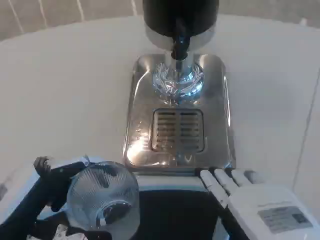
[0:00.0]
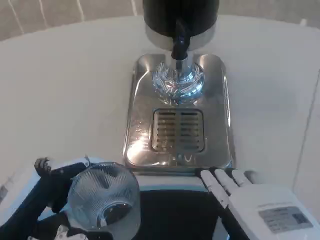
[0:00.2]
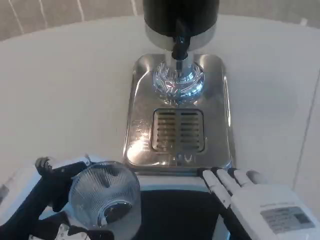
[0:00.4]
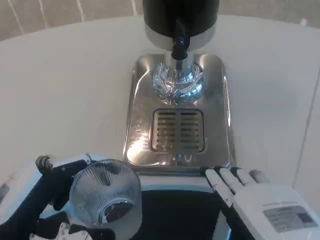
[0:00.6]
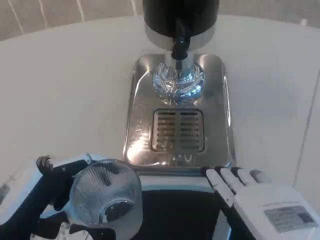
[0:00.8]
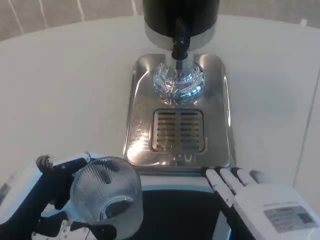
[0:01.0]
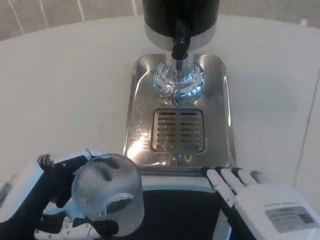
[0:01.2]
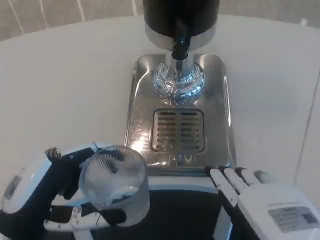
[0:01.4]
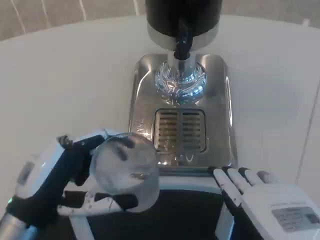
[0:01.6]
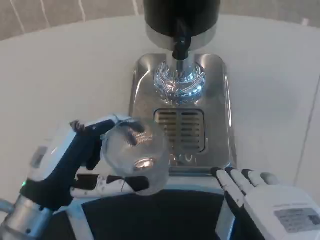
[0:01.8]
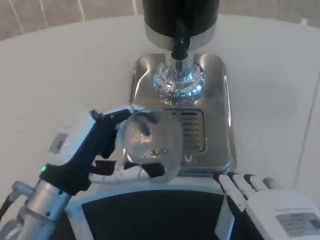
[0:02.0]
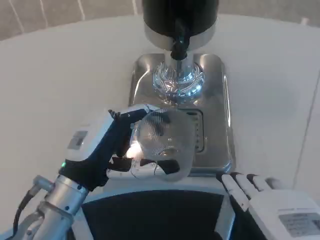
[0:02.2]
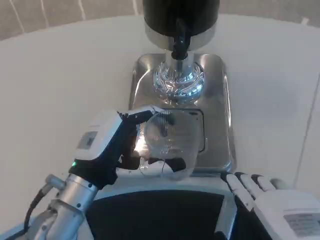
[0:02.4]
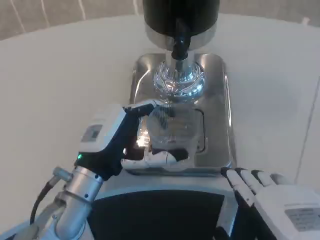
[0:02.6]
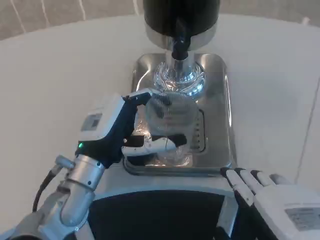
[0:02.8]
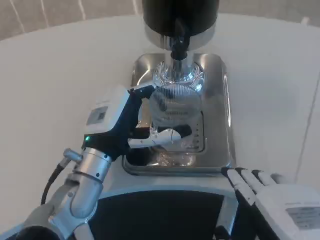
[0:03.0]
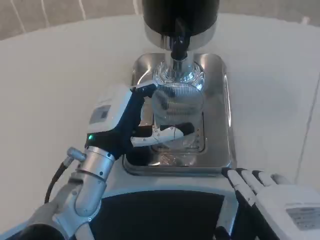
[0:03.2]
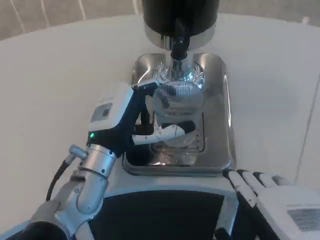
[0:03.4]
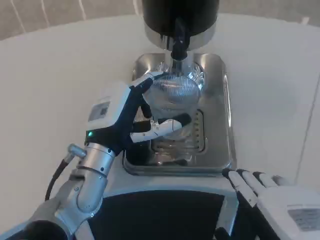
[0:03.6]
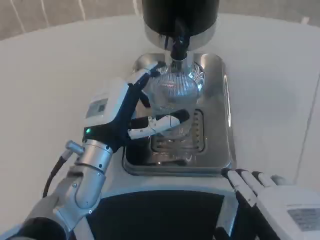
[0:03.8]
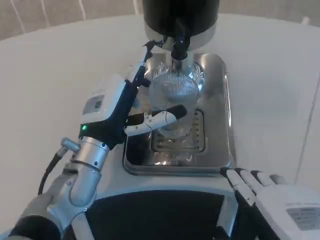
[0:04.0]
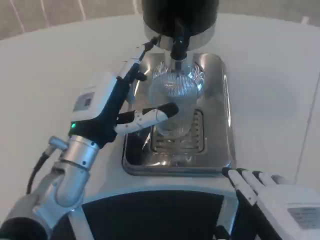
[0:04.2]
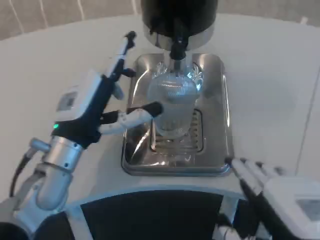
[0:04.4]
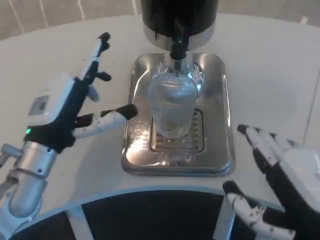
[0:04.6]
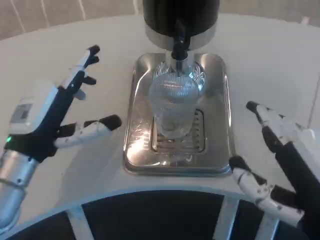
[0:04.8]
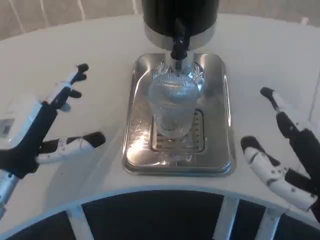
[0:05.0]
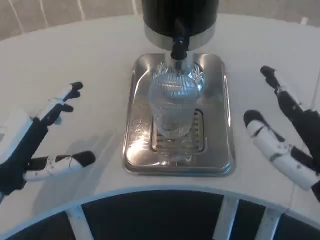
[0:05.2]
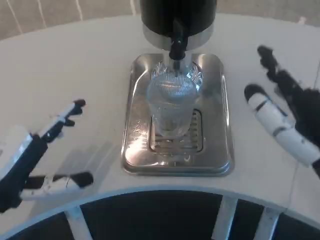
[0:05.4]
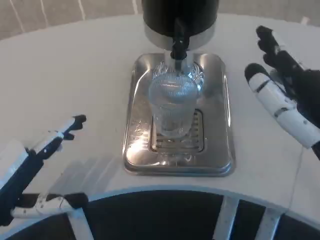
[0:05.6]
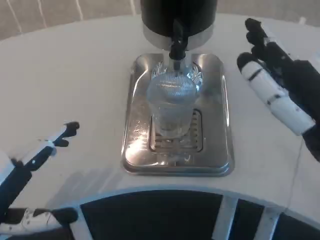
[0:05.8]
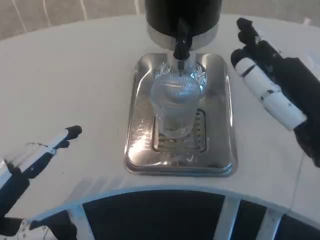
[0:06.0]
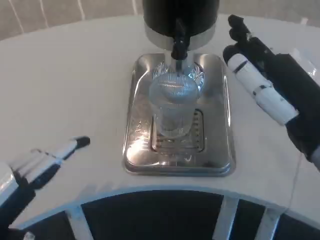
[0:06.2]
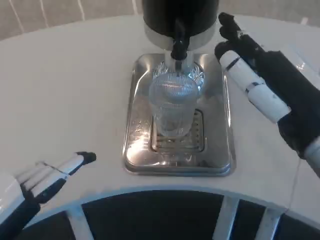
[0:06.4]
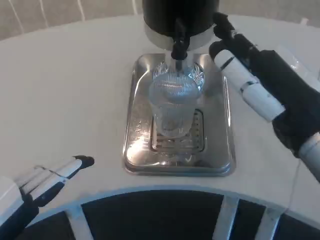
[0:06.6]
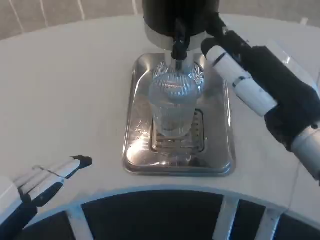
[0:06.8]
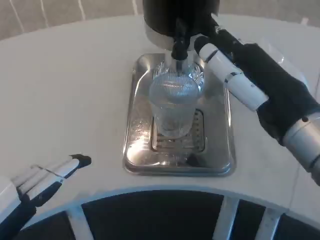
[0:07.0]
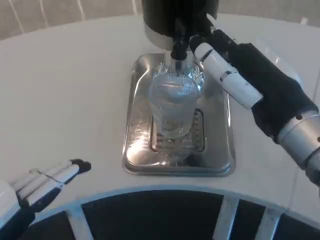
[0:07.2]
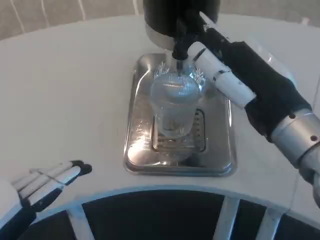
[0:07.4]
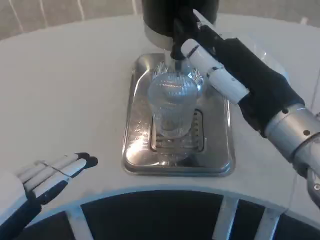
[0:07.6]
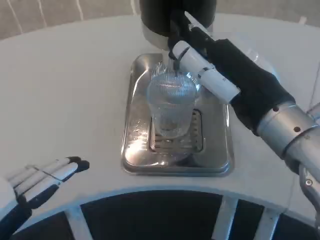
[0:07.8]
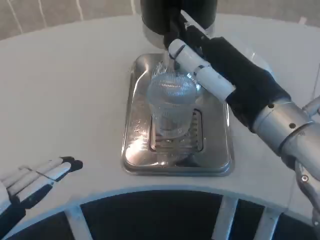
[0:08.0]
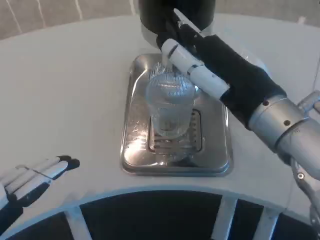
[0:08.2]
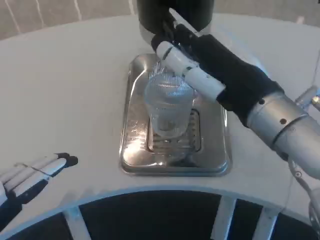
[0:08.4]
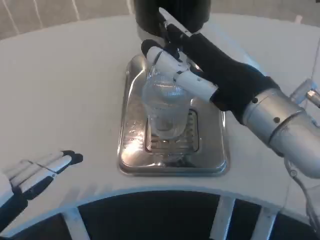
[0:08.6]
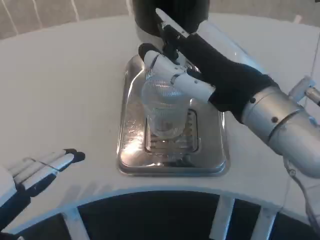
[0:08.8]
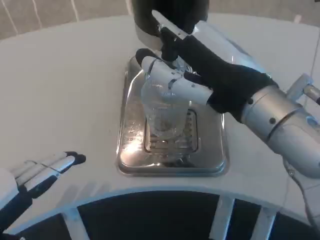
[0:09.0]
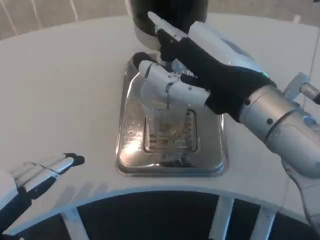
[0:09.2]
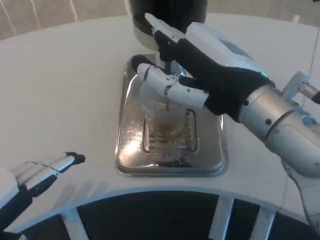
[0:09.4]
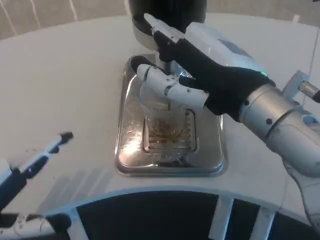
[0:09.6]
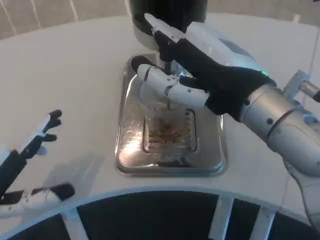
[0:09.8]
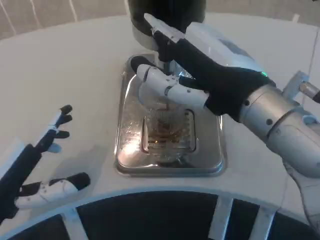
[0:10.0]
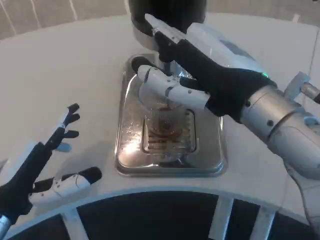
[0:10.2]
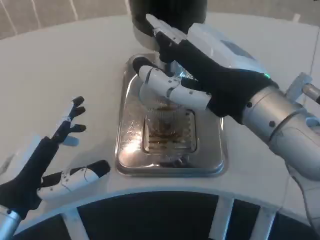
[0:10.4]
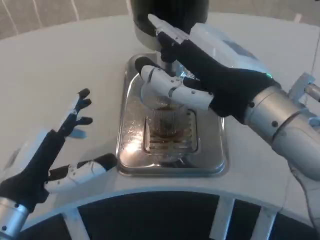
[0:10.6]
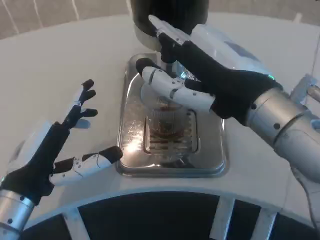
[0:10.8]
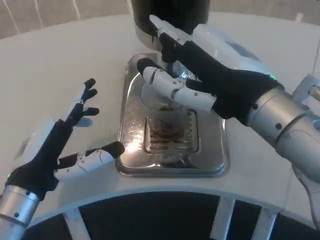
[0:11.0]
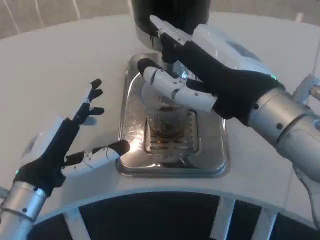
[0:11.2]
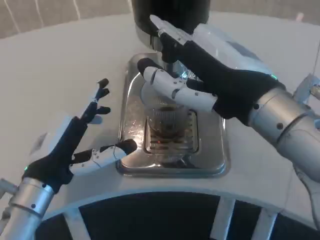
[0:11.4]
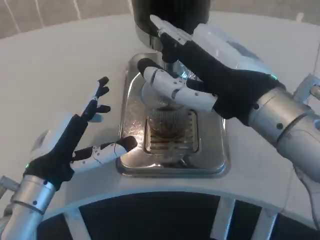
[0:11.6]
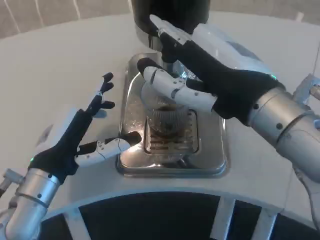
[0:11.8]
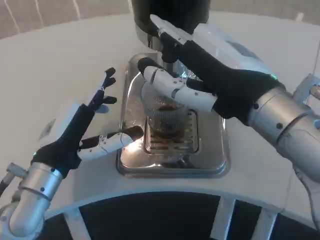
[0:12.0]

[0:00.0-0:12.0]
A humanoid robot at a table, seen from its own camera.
Task of the whole recording: Grasp the cup under the faucet to collect the drink, then remove the cup.
0:00.0 to 0:01.6: The hands make only small movements.
0:01.6 to 0:03.0: The left hand goes about 15 cm forward and to the right.
0:04.4 to 0:06.0: The right hand travels forward and upward by approximately 10 cm. The left hand moves backward and to the left, about 20 cm.
0:06.0 to 0:07.6: The right hand ends up some 5 cm from where it was.
0:09.0 to 0:10.4: The left hand heads to the right and forward, covering about 10 cm.
0:10.4 to 0:12.0: The left hand shifts roughly 5 cm forward.

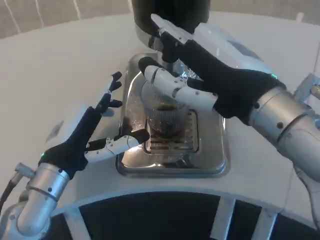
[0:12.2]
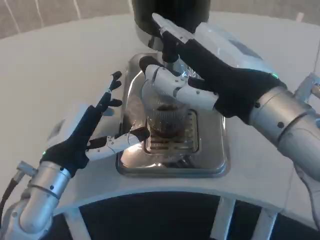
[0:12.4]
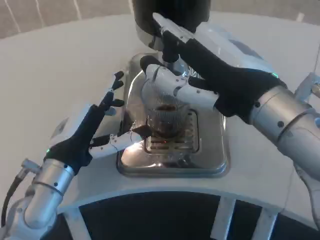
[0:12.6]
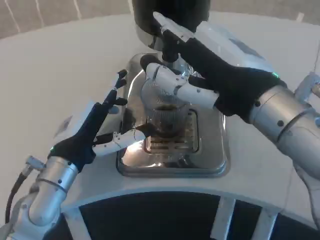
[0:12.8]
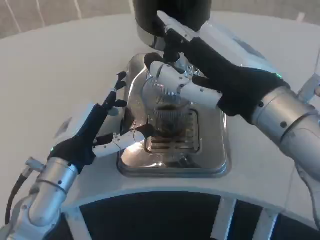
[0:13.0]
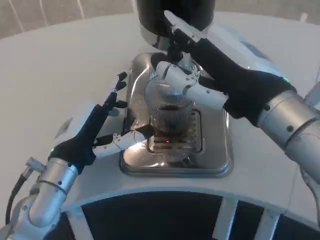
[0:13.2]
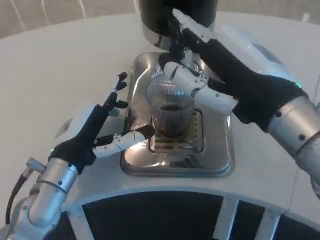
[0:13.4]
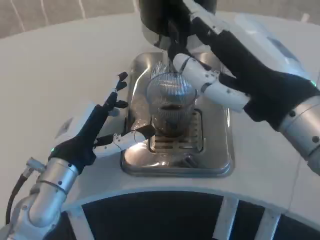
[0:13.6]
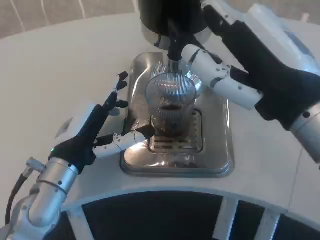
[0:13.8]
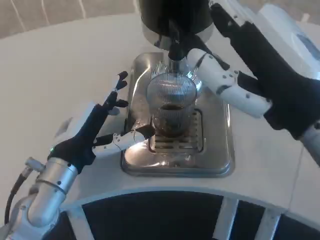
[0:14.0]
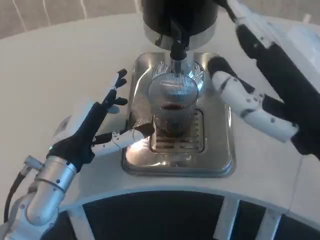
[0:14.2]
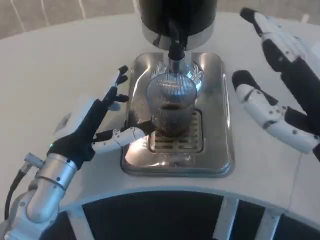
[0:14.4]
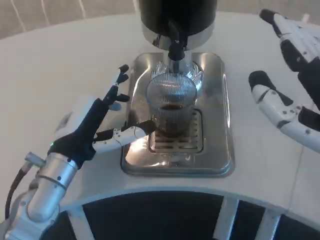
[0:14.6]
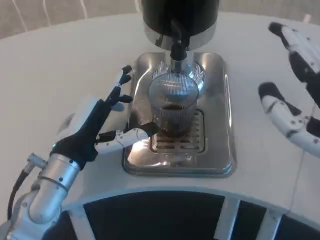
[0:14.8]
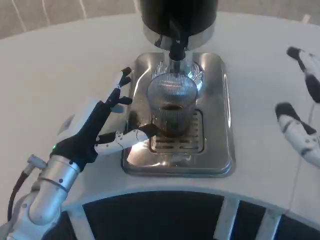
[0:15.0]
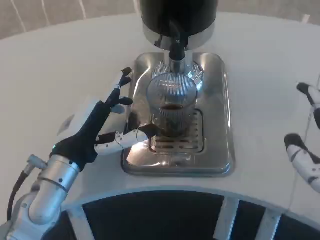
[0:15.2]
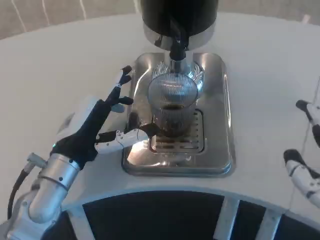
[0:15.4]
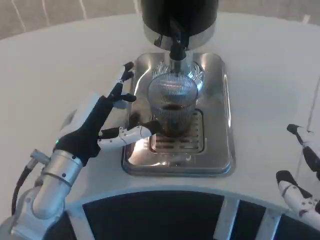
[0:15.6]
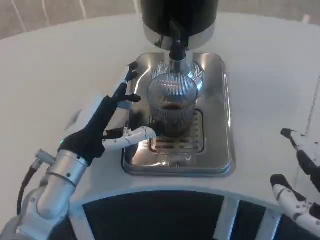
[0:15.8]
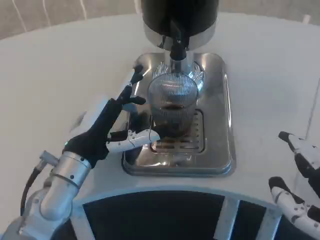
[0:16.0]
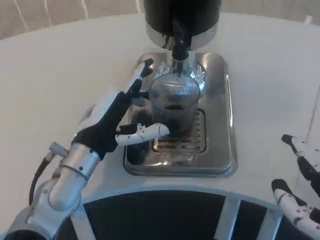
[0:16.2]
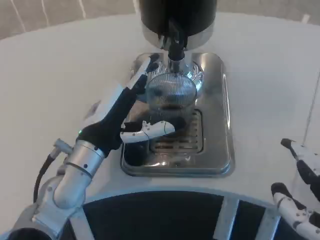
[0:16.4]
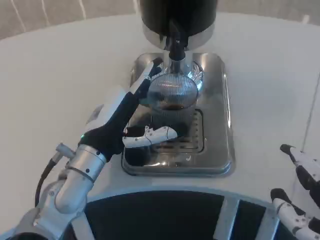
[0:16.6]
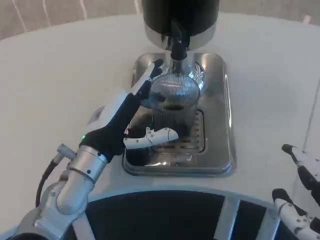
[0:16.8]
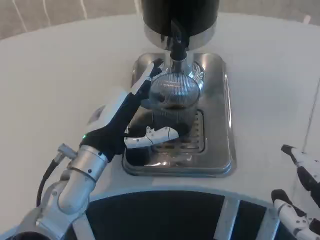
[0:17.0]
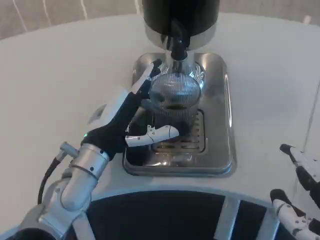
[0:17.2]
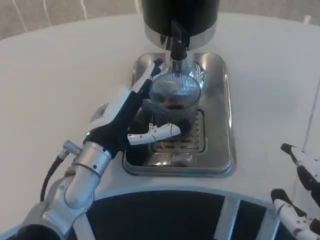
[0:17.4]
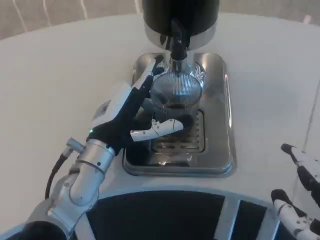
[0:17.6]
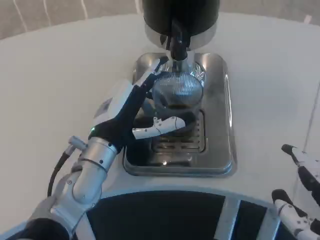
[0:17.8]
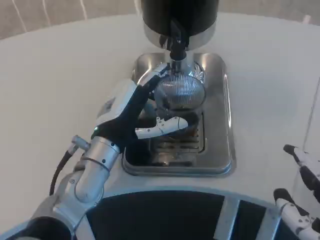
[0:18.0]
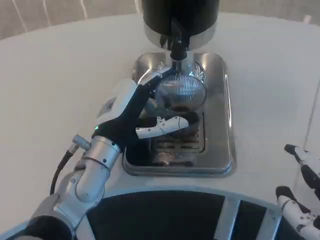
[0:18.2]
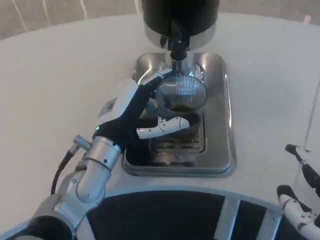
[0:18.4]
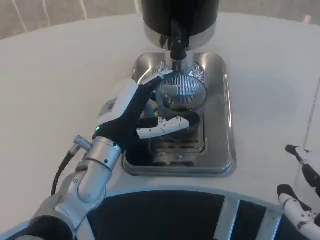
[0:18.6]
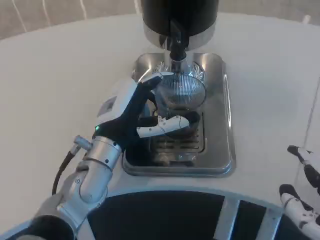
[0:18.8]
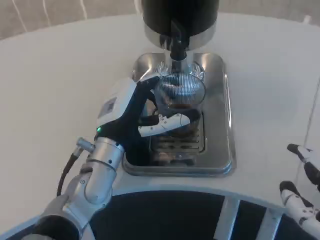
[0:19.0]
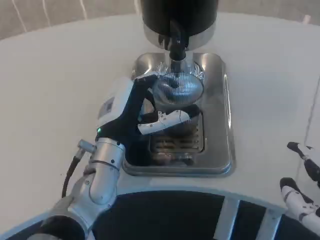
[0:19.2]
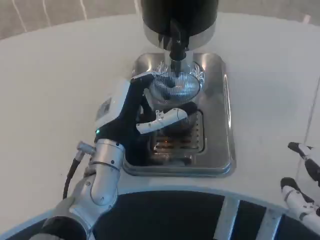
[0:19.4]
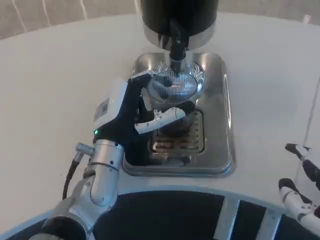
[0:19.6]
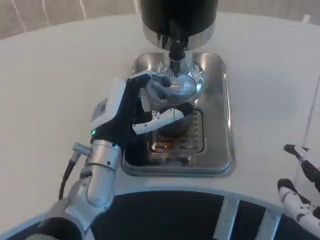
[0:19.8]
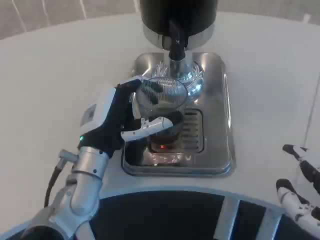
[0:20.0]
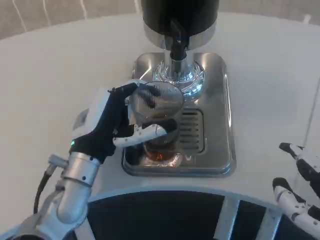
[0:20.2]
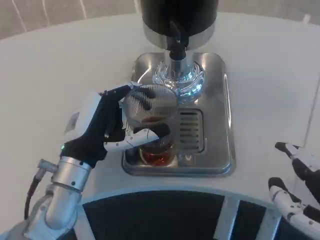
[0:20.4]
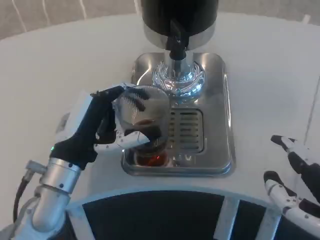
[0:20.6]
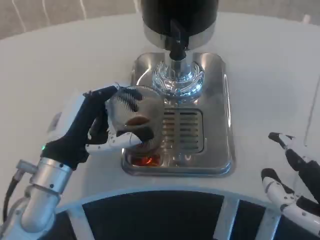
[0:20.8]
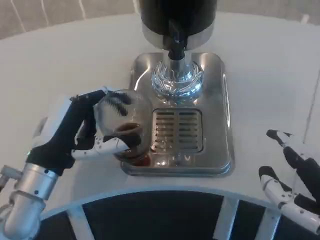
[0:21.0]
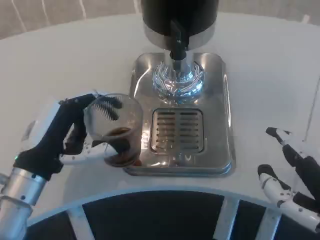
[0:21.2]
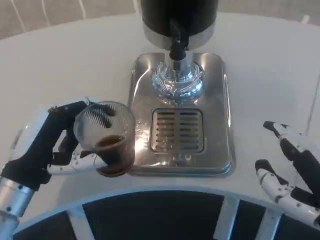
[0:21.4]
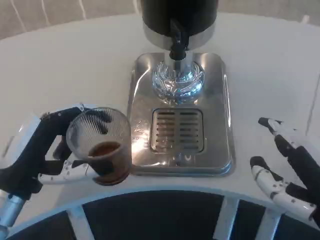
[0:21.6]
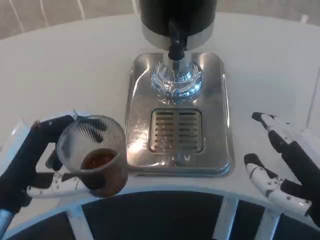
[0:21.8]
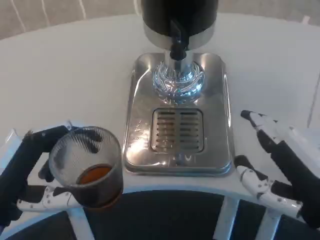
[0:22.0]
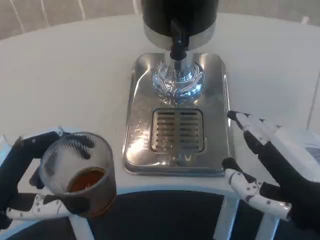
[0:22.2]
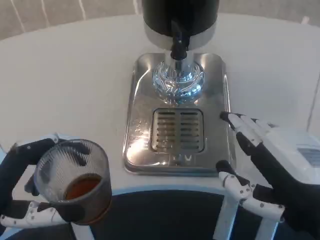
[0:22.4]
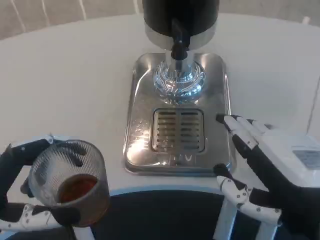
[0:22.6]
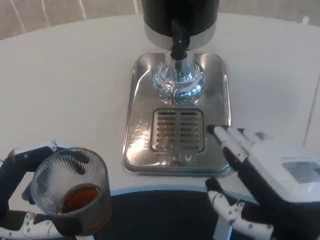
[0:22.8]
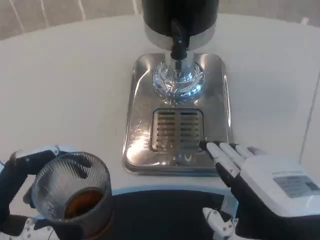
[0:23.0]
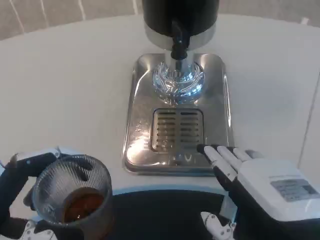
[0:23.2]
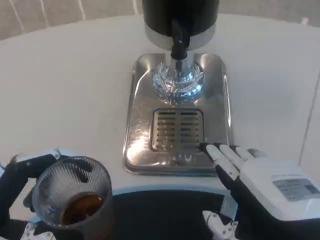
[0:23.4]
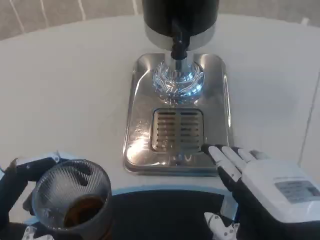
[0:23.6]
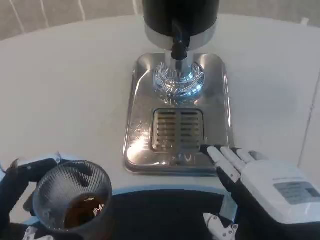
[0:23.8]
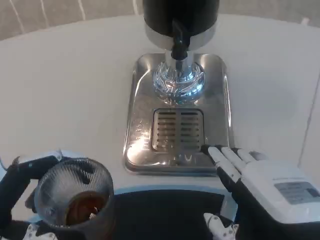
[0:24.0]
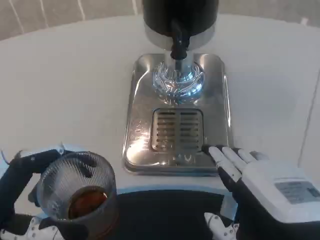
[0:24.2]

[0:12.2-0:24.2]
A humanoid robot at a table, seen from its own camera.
Task of the whole recording: Grasp the cup under the faucet to collect the drink, then remove the cup.
0:13.8 to 0:15.2: The right hand heads backward, to the right and downward, covering about 10 cm.
0:15.2 to 0:16.6: There are only small adjustments of the hands.
0:16.6 to 0:19.8: The hands make only small movements.
0:19.8 to 0:21.2: The left hand goes some 10 cm to the left and backward.
0:21.2 to 0:22.6: The left hand travels backward by approximately 10 cm.
0:22.6 to 0:24.2: There are only small adjustments of the hands.
